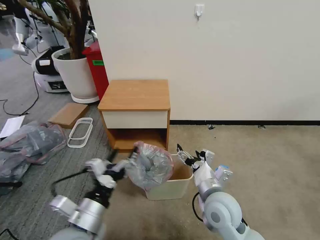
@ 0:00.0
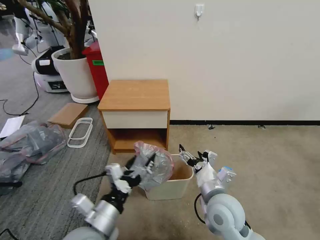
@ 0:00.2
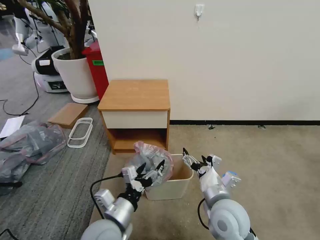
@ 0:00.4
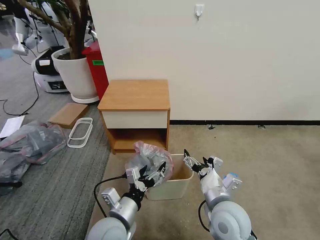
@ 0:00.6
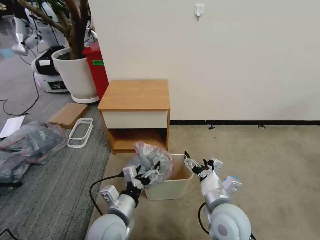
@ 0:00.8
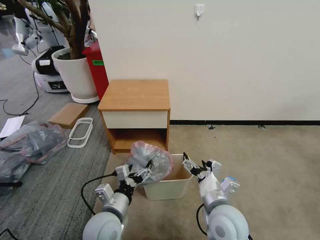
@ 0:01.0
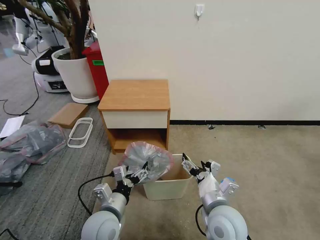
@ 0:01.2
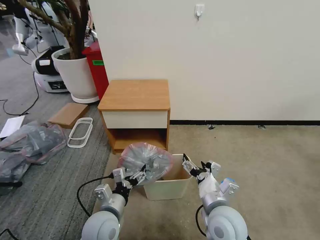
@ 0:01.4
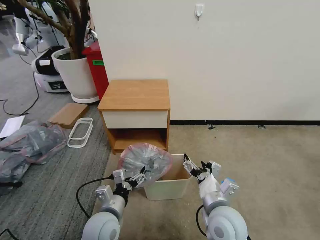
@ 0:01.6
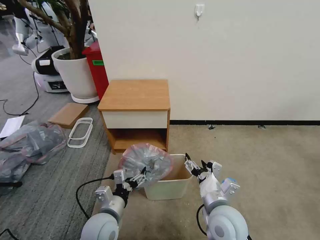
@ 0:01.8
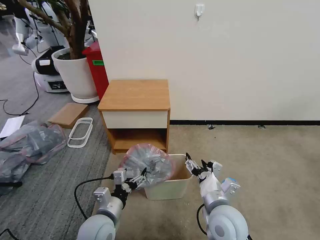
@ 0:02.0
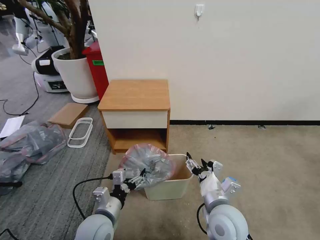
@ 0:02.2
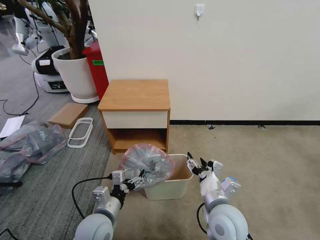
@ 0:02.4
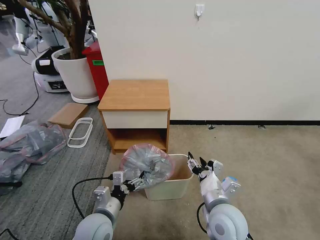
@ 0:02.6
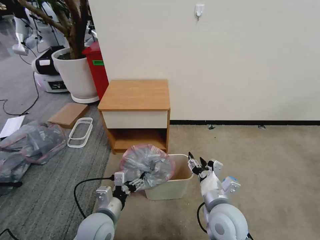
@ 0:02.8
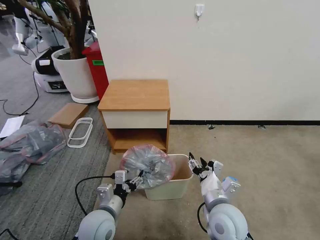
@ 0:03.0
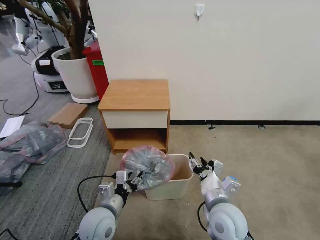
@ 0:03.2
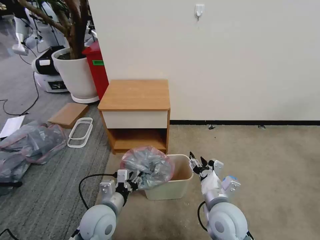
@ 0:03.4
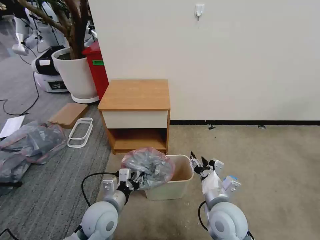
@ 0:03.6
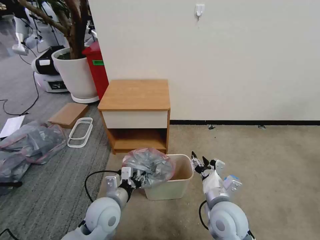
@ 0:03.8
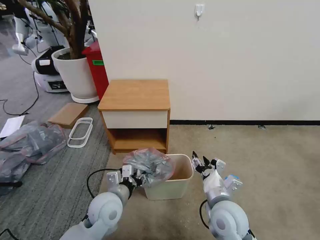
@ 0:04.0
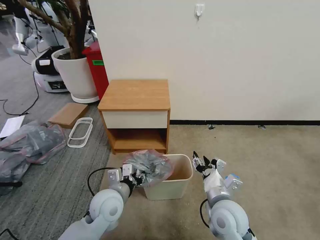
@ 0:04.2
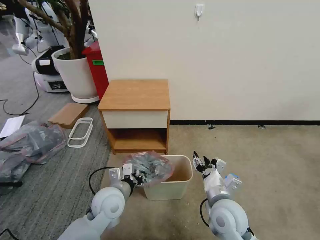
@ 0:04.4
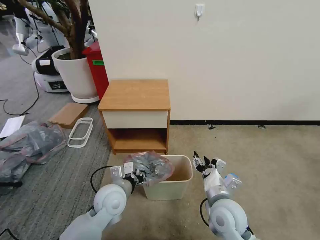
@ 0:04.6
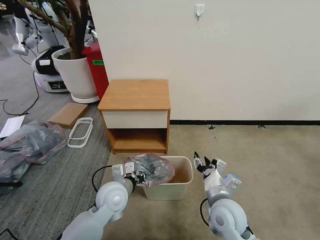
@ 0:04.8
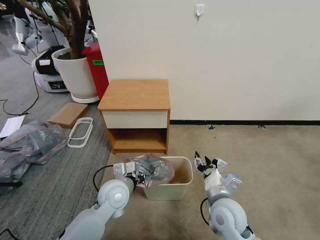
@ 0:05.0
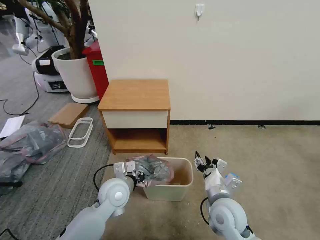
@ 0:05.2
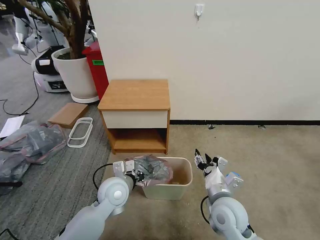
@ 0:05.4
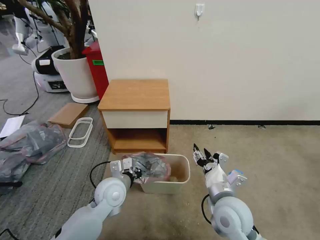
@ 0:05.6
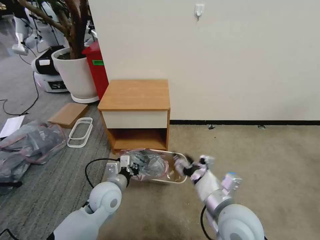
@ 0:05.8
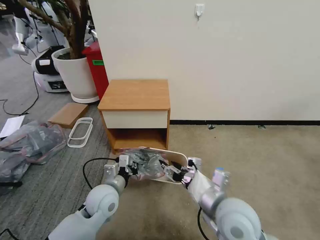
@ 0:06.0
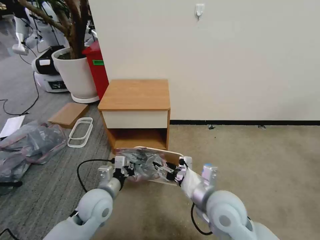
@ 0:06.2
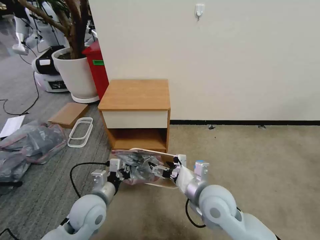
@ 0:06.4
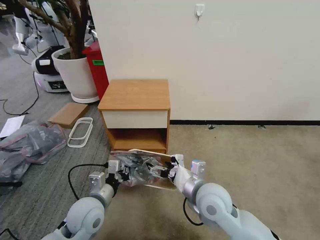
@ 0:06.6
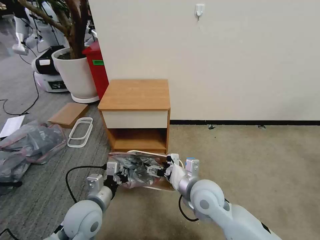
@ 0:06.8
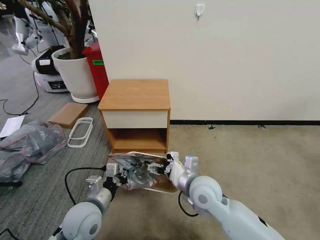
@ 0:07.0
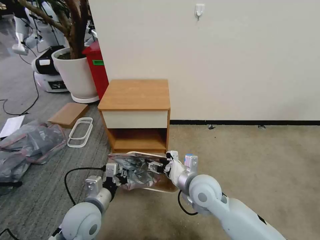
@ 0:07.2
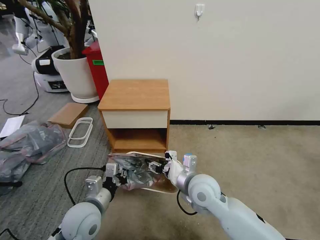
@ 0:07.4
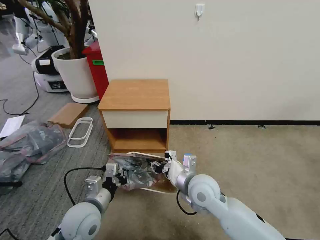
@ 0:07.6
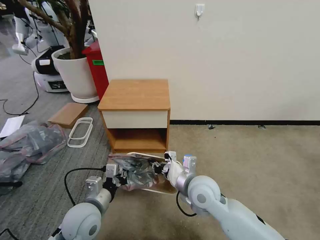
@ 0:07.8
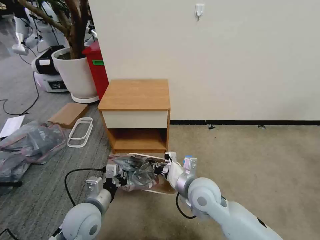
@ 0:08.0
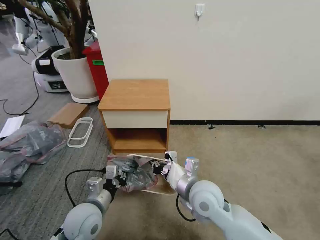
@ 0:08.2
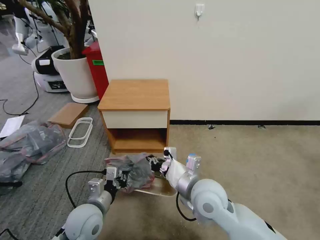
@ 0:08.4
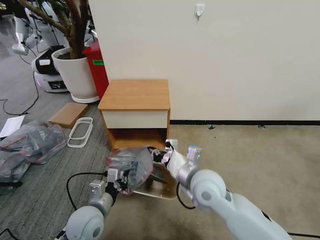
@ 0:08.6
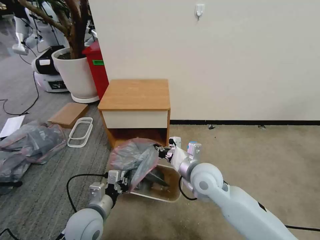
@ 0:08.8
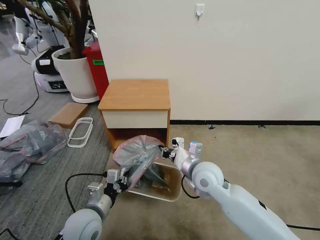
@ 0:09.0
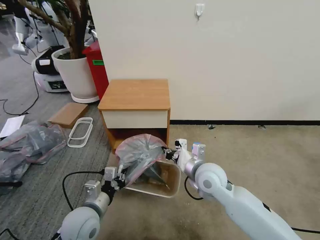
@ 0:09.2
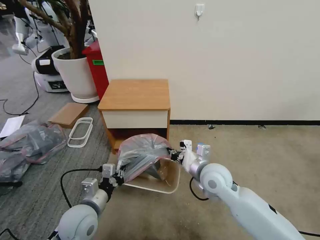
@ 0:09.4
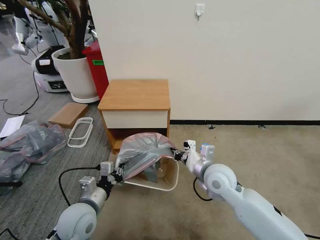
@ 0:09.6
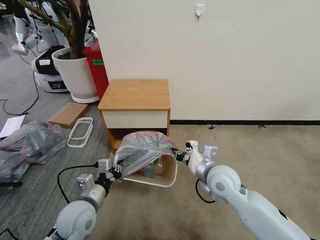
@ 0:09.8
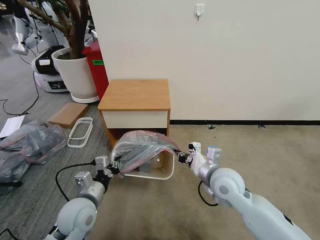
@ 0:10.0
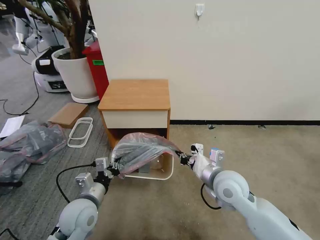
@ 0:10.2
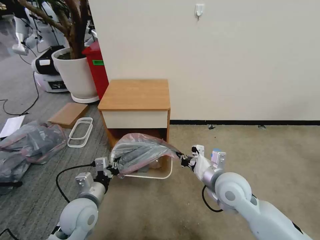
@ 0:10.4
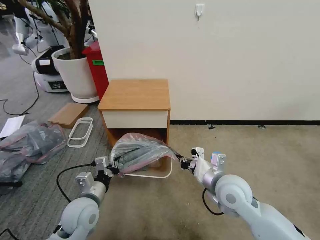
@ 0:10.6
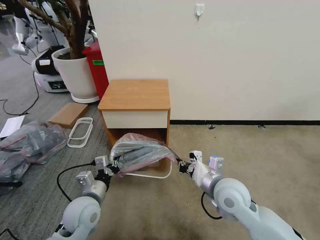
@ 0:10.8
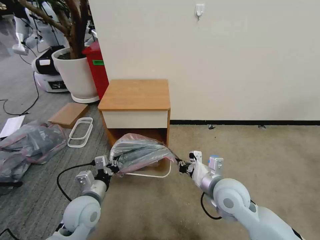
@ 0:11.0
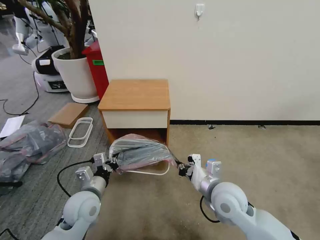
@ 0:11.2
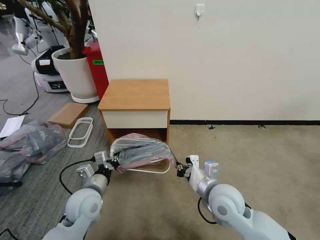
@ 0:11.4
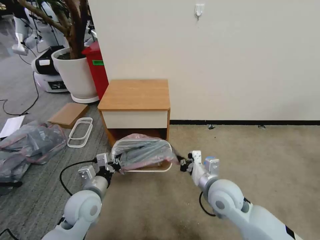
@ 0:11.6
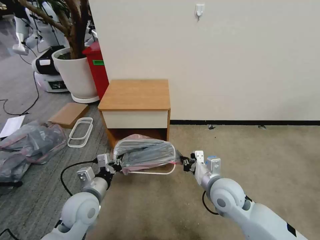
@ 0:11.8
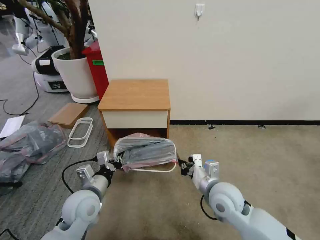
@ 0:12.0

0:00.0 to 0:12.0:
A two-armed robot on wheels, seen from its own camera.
Task of the whole recording: Pick up the garbage bag from the table and place it over the trash can.
0:00.0 to 0:01.6: The left gripper goes roughly 10 cm downward and forward.
0:01.6 to 0:03.0: The grippers make only small movements.
0:03.0 to 0:04.4: The left gripper goes approximately 5 cm forward, and closes up.
0:04.4 to 0:06.0: The right gripper moves upward, some 10 cm.
0:06.0 to 0:07.6: The right gripper travels forward and to the left by roughly 10 cm, and opens, then closes again. The left gripper shifts some 5 cm backward.
0:07.6 to 0:09.0: There are only small adjustments of the grippers.
0:09.0 to 0:10.4: The right gripper is displaced to the right by some 5 cm.
0:10.4 to 0:12.0: The grippers stay close to where they were, moving slightly.

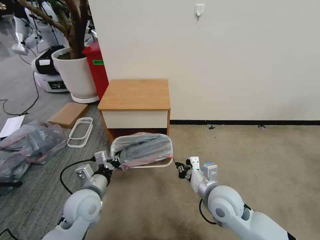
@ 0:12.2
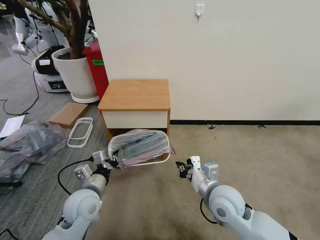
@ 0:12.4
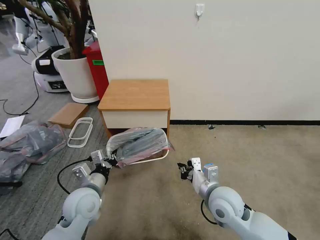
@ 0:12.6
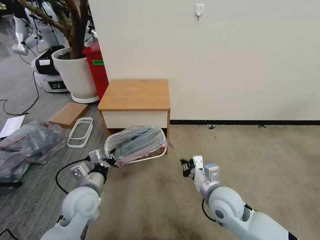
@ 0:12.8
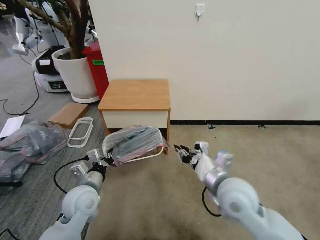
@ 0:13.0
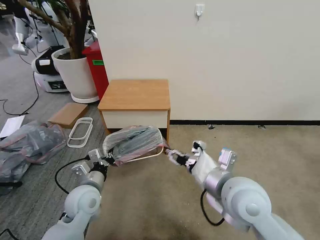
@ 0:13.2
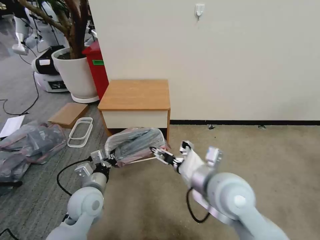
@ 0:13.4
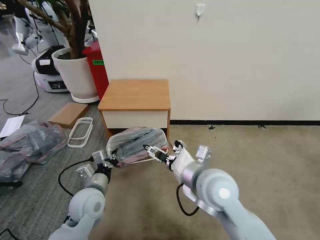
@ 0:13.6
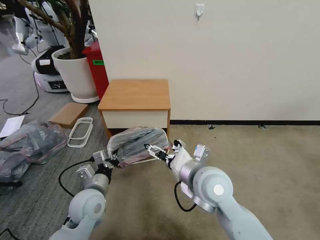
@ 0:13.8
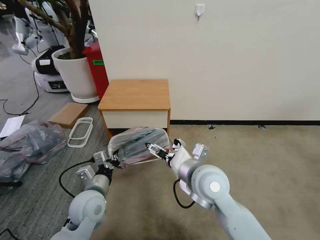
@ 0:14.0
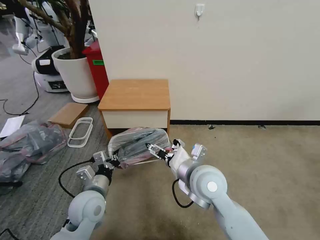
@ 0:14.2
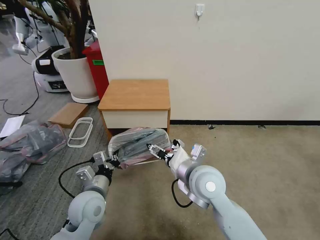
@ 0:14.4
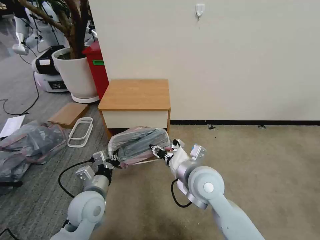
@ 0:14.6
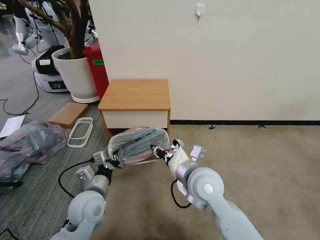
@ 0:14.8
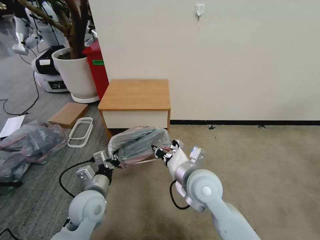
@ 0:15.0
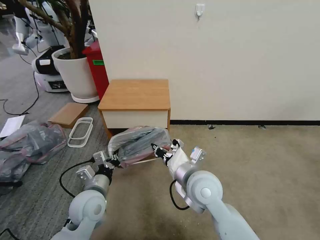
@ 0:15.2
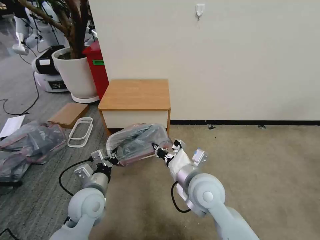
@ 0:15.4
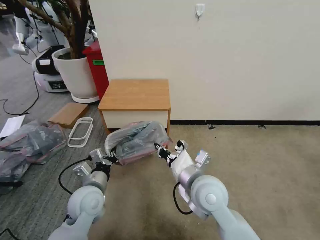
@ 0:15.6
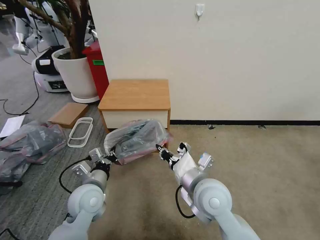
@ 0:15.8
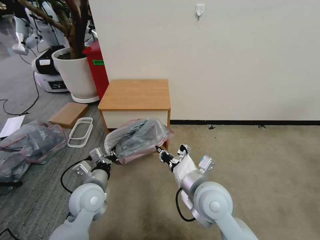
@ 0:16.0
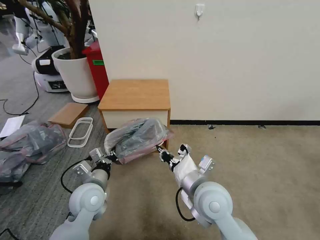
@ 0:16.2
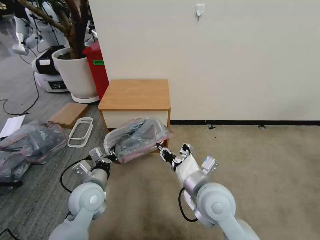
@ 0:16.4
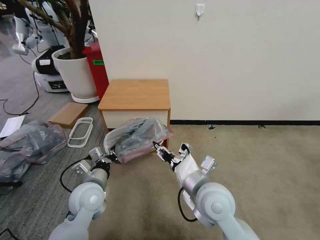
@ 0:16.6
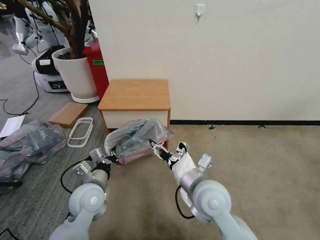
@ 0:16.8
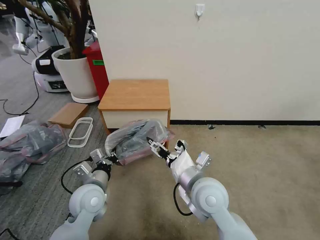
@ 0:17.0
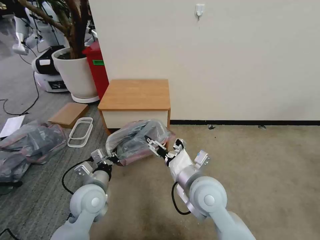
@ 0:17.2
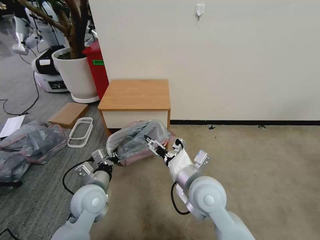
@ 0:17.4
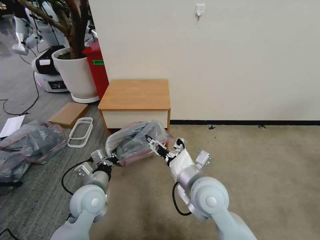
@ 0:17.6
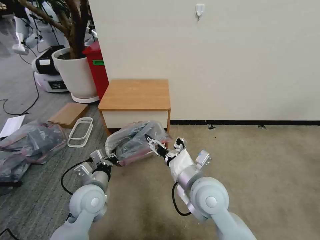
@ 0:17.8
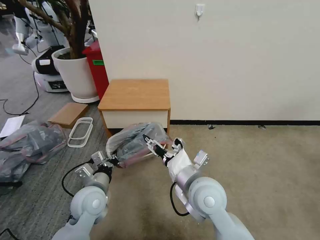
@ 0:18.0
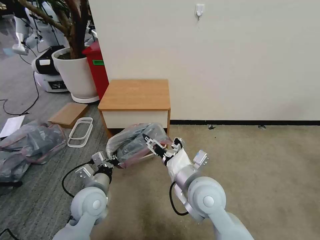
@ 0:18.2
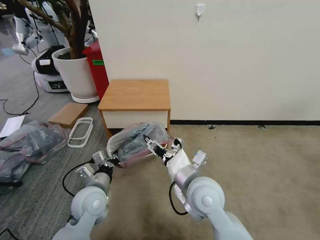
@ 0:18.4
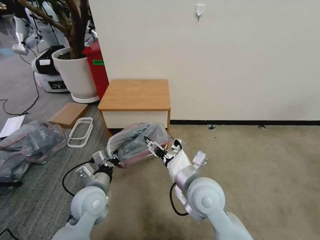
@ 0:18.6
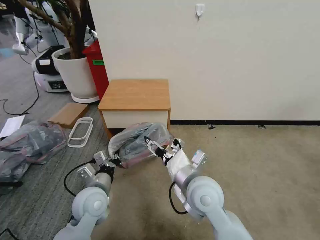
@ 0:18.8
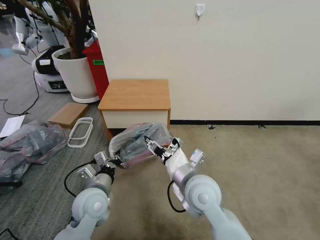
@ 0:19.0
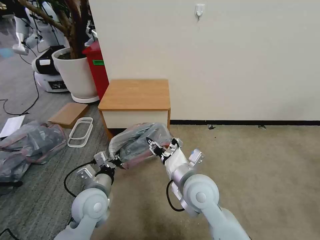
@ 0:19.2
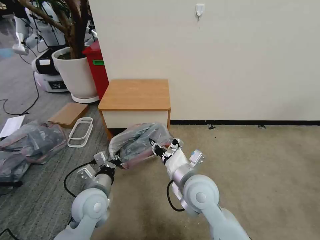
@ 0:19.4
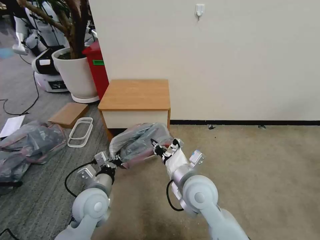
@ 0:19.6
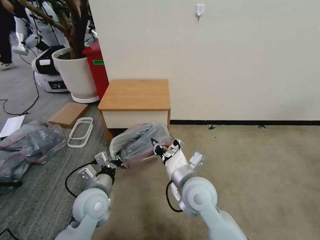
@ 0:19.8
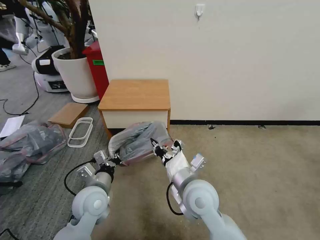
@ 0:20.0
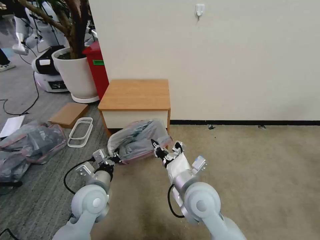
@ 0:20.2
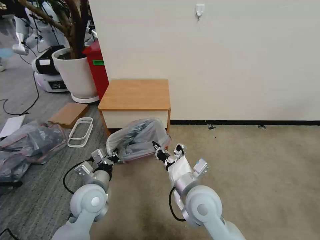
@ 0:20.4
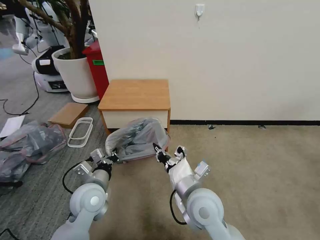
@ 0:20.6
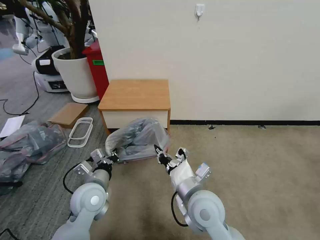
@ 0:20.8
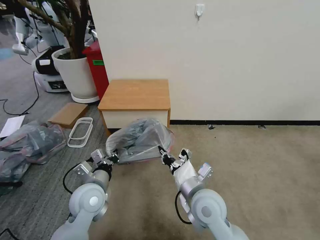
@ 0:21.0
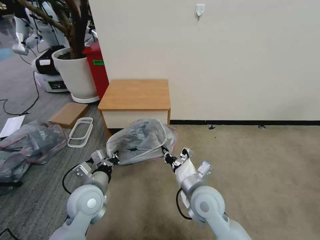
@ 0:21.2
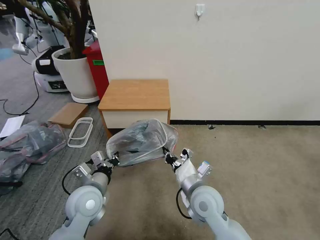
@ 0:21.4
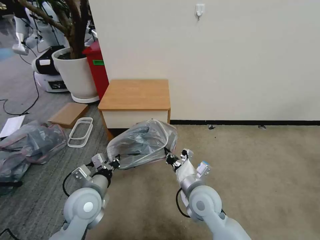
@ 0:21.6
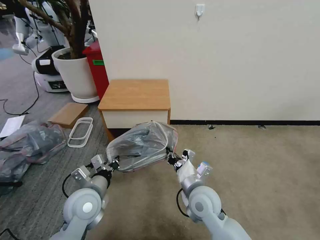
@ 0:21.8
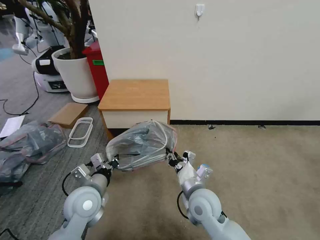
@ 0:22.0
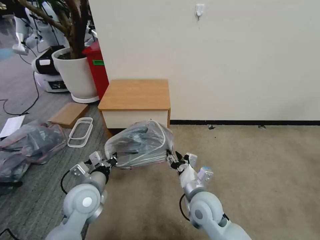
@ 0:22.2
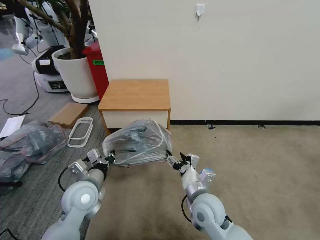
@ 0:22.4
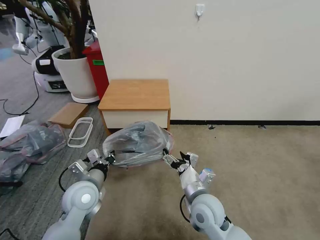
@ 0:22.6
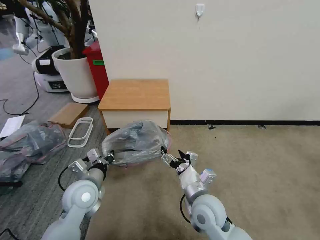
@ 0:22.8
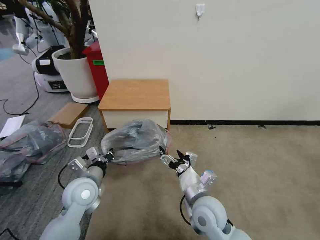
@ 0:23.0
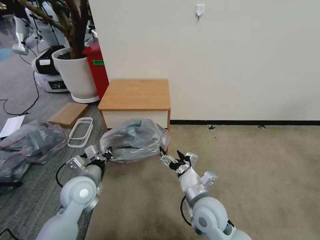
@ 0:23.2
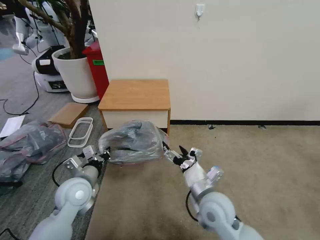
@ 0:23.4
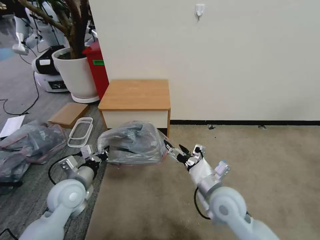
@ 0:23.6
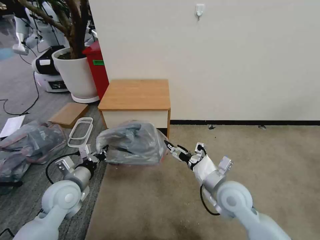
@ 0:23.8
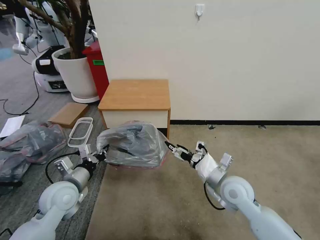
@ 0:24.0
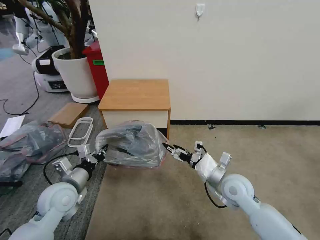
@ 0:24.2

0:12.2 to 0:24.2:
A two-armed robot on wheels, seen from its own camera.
Task of the whole recording: Pick up the garbage bag from the table and place it over the trash can.
0:12.2 to 0:13.8: The right gripper heads upward and to the left, covering approximately 10 cm, and opens its fingers.
0:13.8 to 0:15.2: The right gripper closes up.
0:15.2 to 0:16.6: The right gripper opens up.
0:16.6 to 0:18.2: The grippers move only a little.
0:18.2 to 0:19.8: The right gripper closes.
0:19.8 to 0:21.2: The right gripper ends up approximately 5 cm from where it was.
0:21.2 to 0:22.6: The right gripper opens up.
0:22.6 to 0:24.2: The right gripper is displaced to the right and forward by approximately 10 cm. Meanwhile the left gripper heads to the left, covering about 5 cm.
